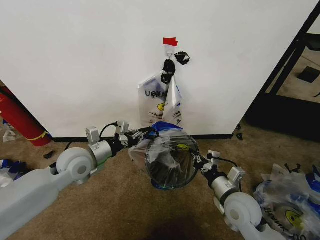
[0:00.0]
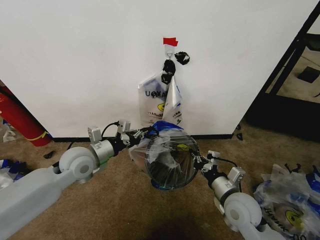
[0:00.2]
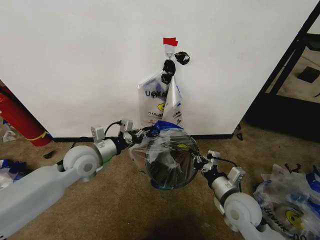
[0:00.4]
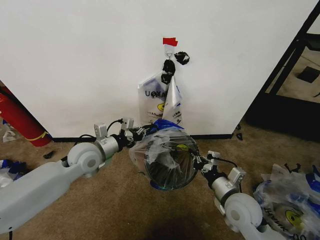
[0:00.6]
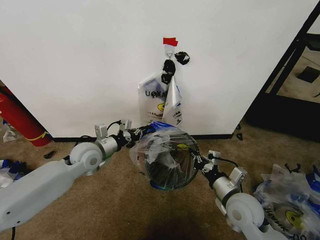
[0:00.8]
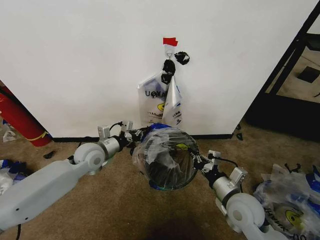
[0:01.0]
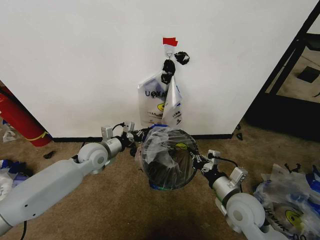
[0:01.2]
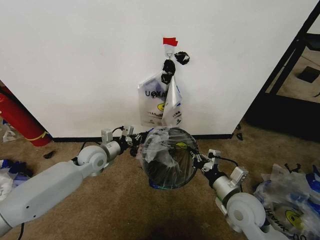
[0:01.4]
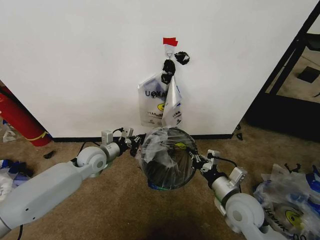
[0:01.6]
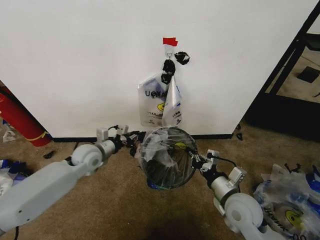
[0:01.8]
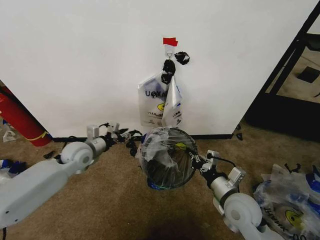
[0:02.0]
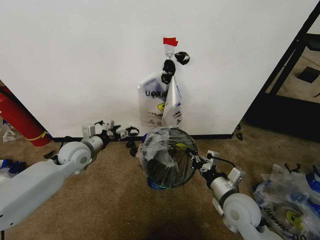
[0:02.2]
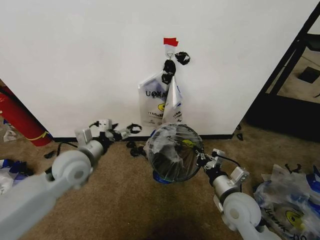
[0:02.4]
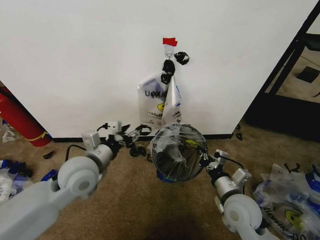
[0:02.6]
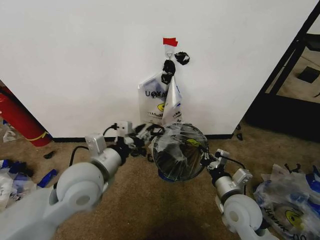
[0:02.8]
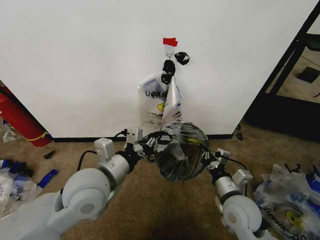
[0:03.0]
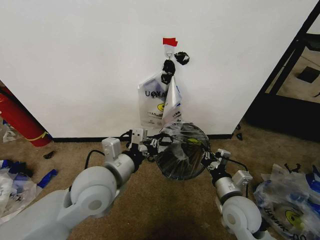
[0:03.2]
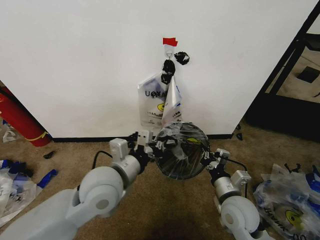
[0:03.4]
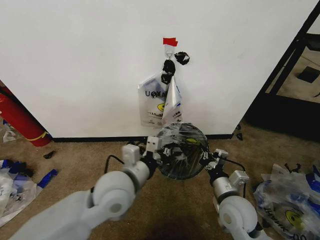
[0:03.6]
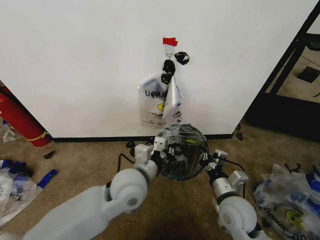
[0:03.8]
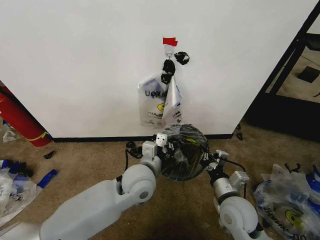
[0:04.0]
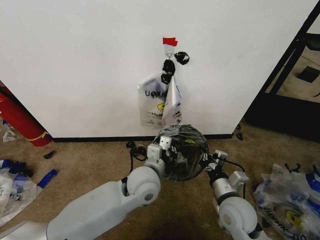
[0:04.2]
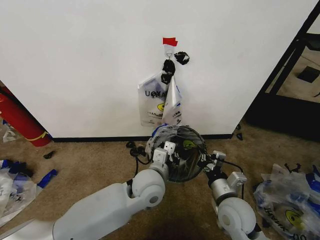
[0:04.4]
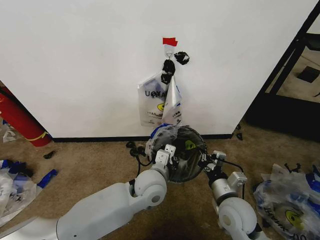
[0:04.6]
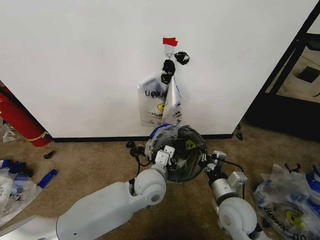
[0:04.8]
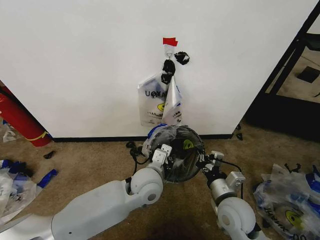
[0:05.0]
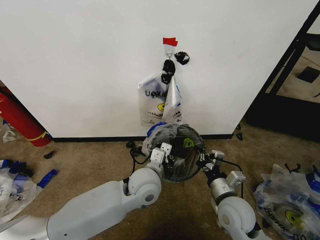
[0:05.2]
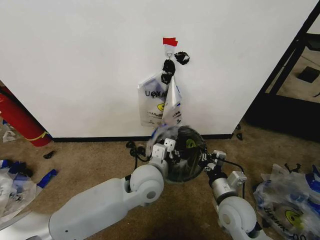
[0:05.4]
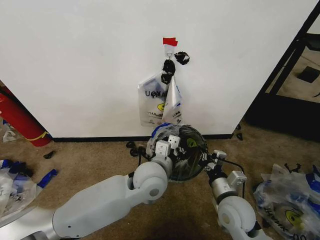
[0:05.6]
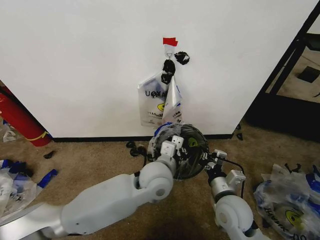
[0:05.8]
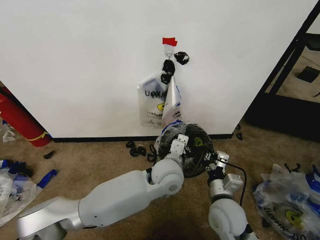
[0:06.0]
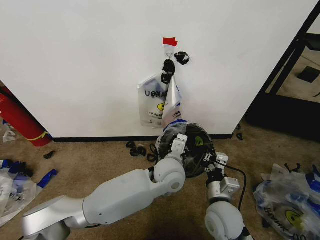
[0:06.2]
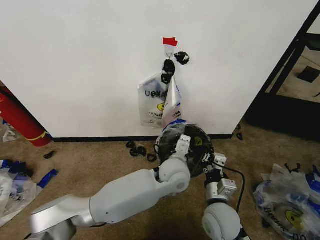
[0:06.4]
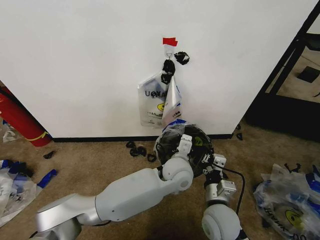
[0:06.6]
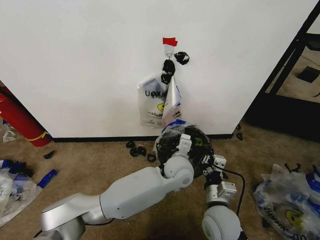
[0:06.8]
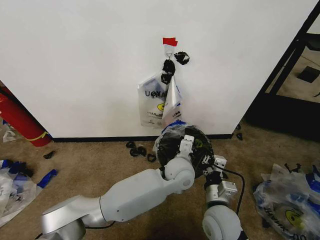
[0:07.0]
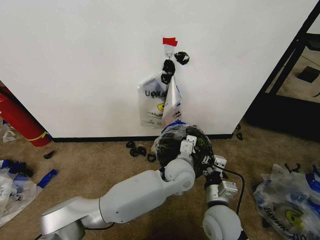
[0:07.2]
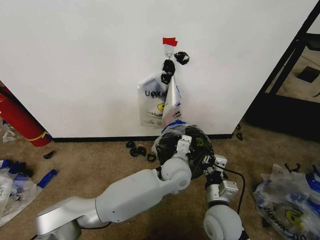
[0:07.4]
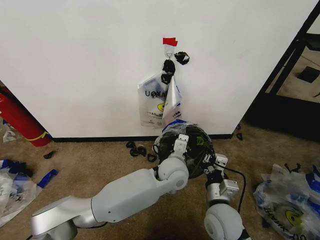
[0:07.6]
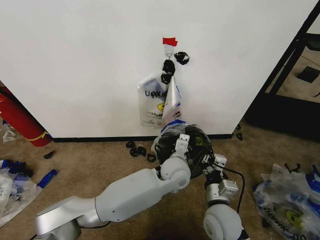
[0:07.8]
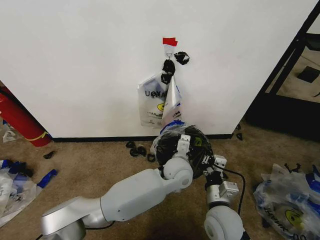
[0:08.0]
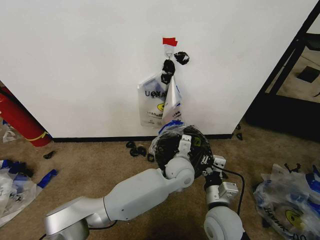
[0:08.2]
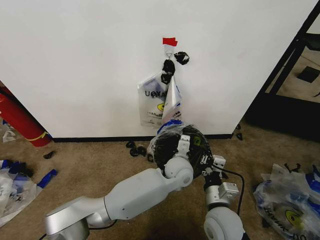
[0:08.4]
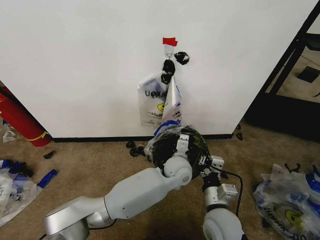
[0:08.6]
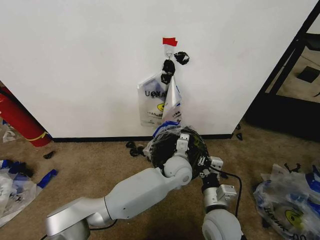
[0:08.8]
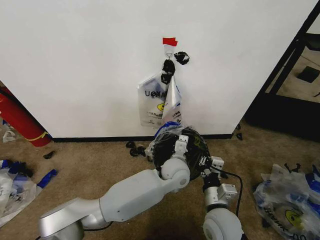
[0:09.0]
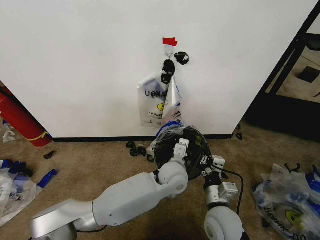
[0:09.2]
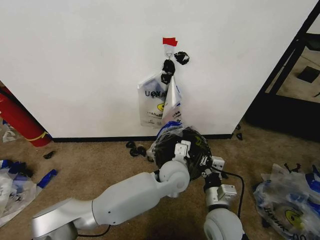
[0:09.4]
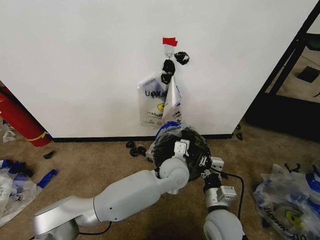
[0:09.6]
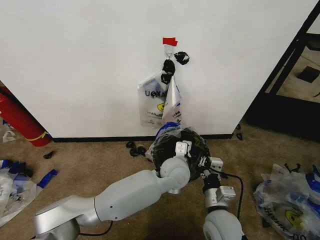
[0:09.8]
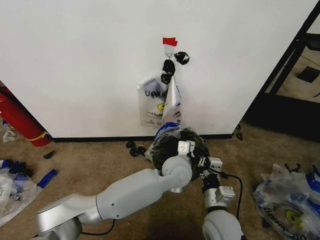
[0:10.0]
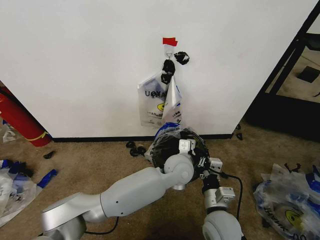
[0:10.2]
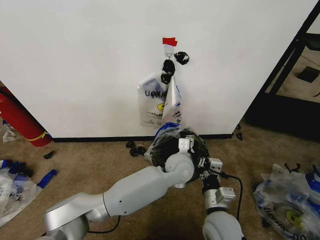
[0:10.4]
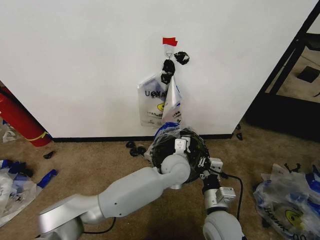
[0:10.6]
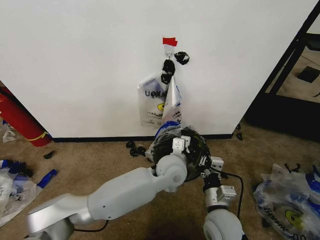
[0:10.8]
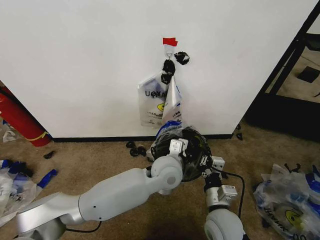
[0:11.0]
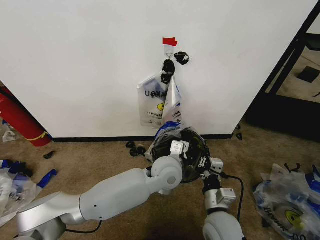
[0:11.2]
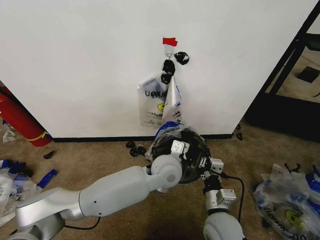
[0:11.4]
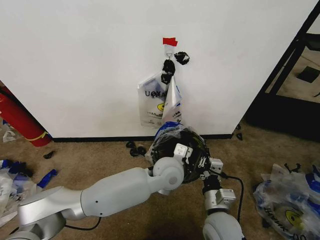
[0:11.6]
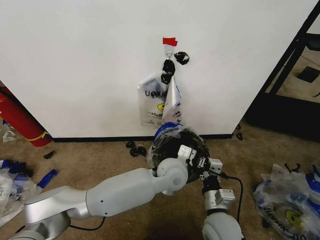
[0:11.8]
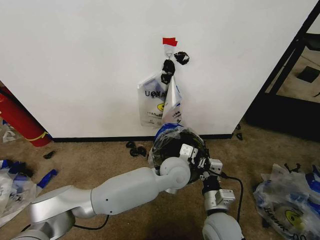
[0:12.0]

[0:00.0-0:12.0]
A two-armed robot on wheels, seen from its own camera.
Task of the whole recording: Pick up the garbage bag from the wall and place it over the trash bin.
0:00.0 to 0:01.6: The left gripper is displaced downward and forward by about 10 cm.
0:01.6 to 0:03.0: The left gripper travels backward, upward and to the right by approximately 25 cm, and opens and closes again.
0:03.0 to 0:04.4: The left gripper travels to the right, downward and forward by approximately 15 cm.
0:04.4 to 0:06.0: The left gripper shifts approximately 5 cm to the right.
0:07.6 to 0:10.4: The grippers make only small movements.

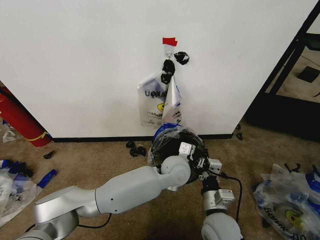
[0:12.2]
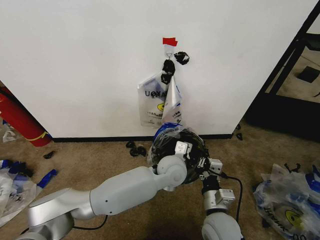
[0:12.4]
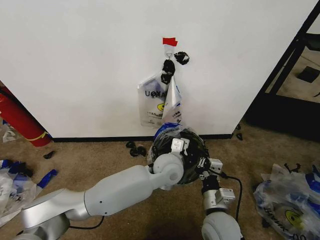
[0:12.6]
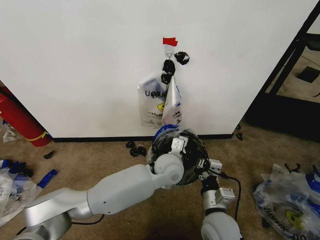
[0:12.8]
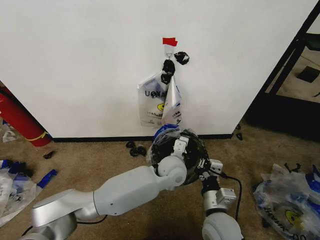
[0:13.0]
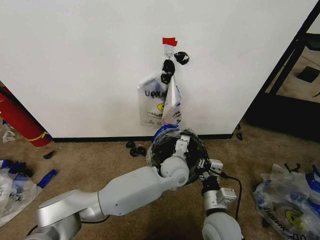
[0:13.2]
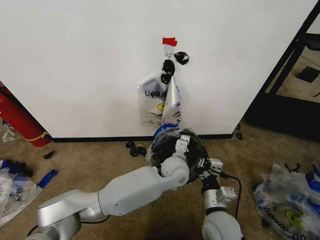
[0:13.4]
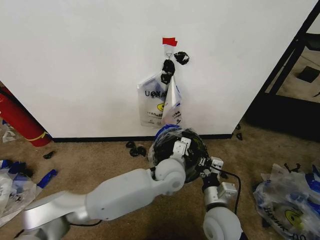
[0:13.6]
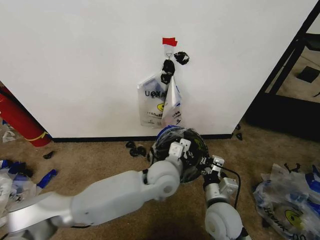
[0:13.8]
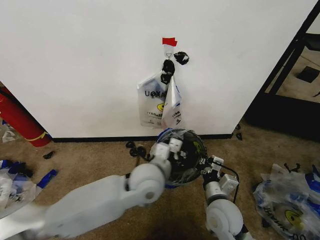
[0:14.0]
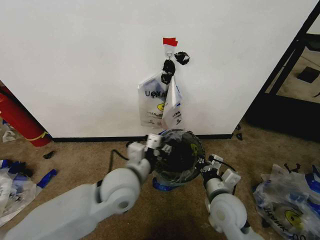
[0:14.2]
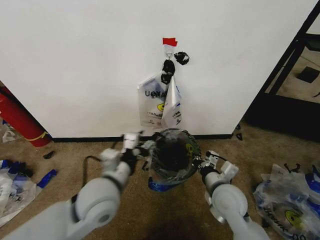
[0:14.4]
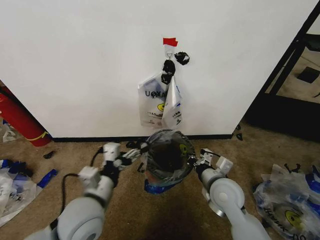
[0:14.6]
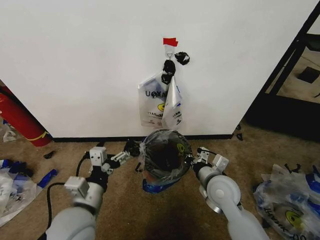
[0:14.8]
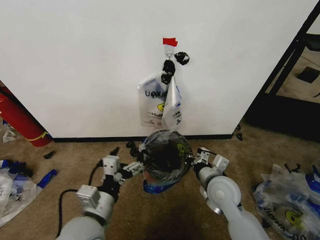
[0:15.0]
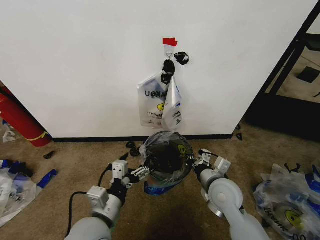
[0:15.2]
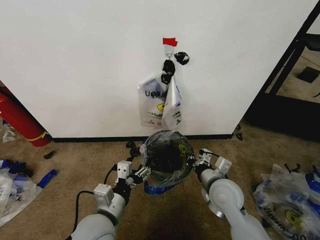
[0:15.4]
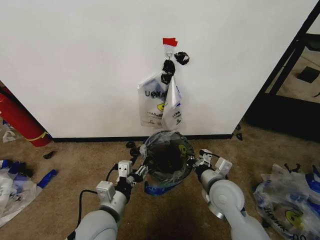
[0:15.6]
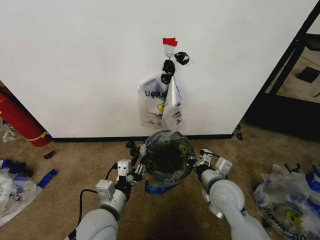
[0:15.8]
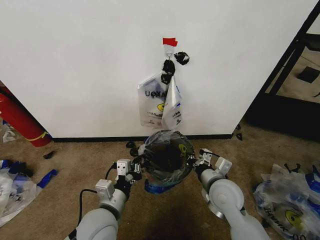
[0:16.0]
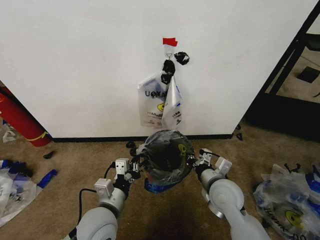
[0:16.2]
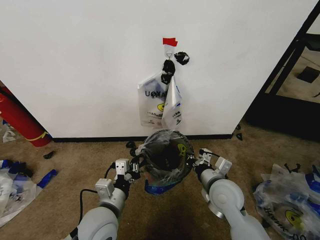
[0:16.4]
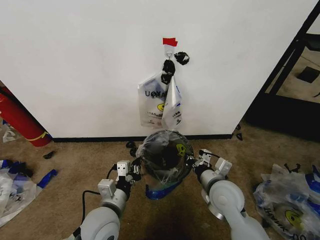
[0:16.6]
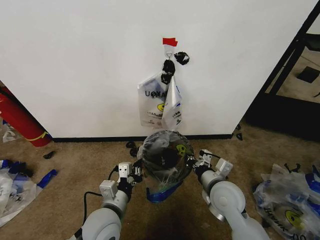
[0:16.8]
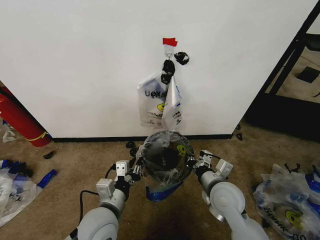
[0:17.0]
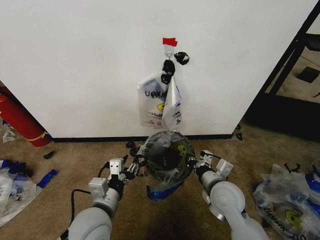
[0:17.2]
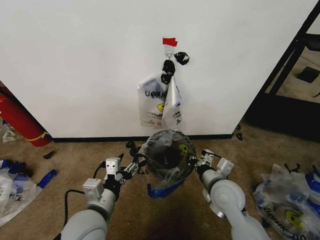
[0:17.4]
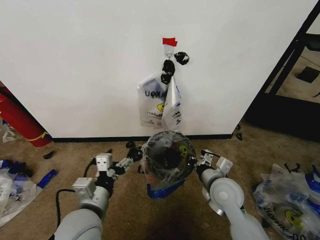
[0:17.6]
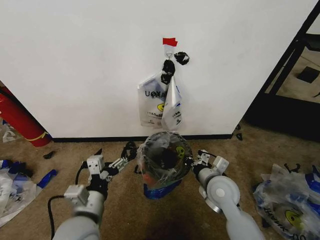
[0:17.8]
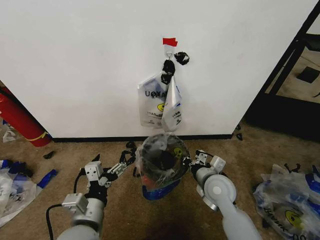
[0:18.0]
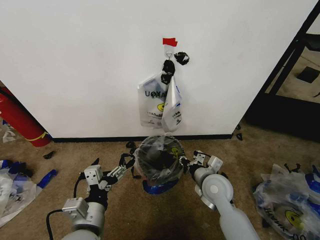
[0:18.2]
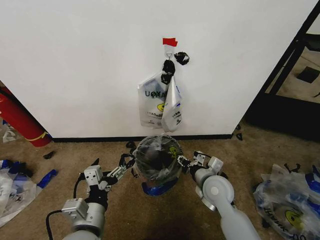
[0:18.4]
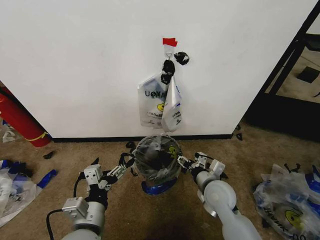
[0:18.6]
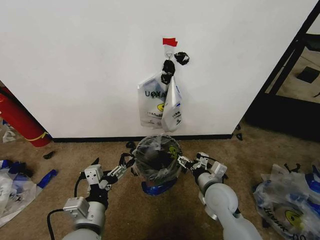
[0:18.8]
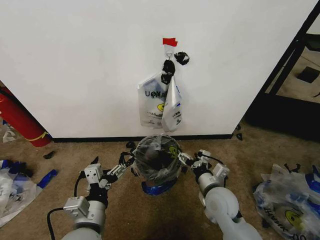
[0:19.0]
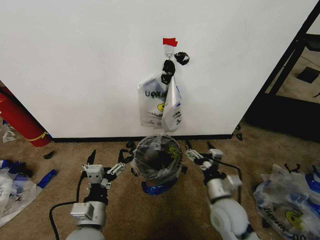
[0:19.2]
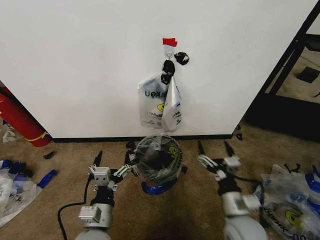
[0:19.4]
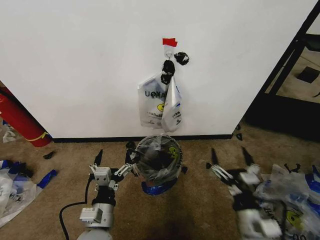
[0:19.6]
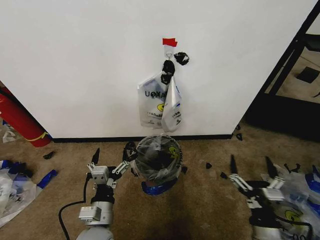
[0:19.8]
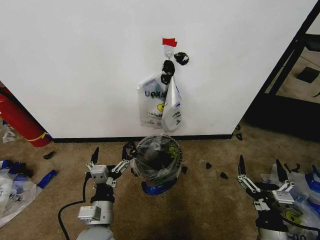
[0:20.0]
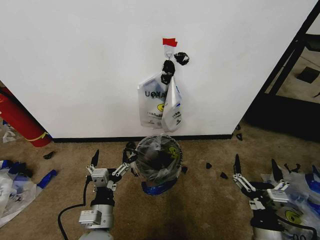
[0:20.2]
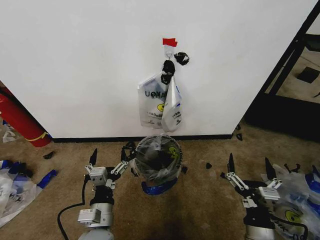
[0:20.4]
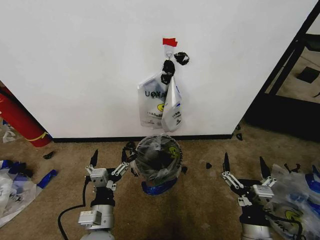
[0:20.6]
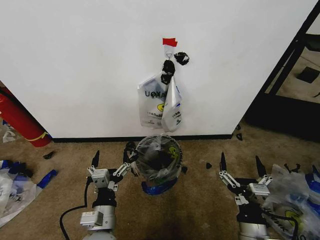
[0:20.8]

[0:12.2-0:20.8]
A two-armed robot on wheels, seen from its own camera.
Task of the whole recording: Pick up the garbage bag from the wall and place it over the trash bin.
0:12.2 to 0:13.6: There are only small adjustments of the grippers.
0:13.6 to 0:15.0: The right gripper travels forward by approximately 10 cm, while the left gripper goes about 30 cm to the left and backward, and opens up.
0:15.0 to 0:16.6: The left gripper moves downward, approximately 5 cm, and closes.
0:16.6 to 0:18.0: The left gripper moves backward, approximately 5 cm, and opens.
0:18.0 to 0:19.4: The right gripper goes about 10 cm backward, and opens up, while the left gripper heads downward, covering some 5 cm.
0:19.4 to 0:20.8: The right gripper shifts approximately 10 cm backward.

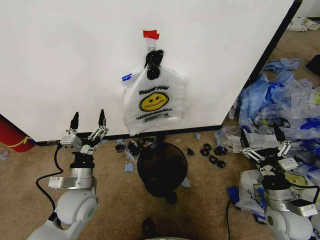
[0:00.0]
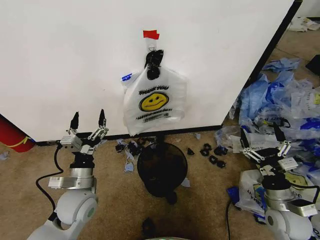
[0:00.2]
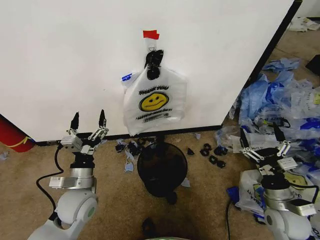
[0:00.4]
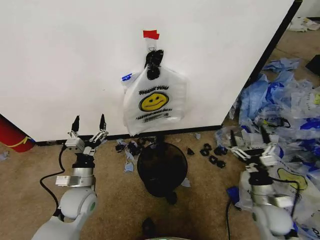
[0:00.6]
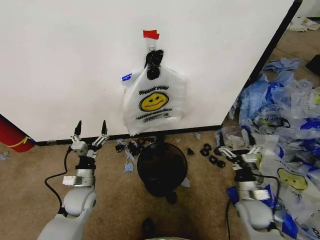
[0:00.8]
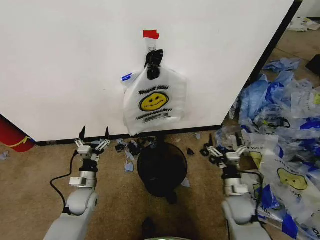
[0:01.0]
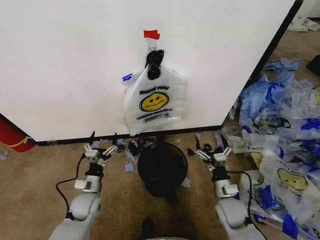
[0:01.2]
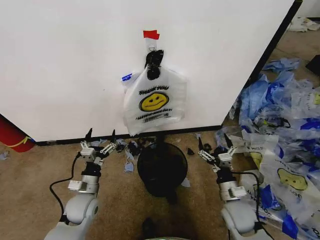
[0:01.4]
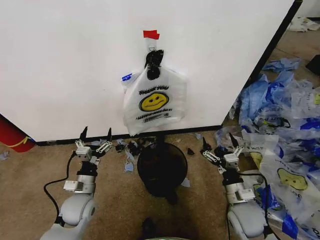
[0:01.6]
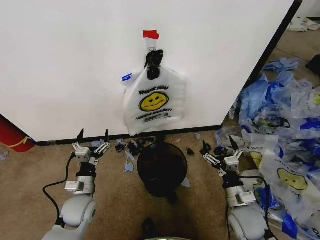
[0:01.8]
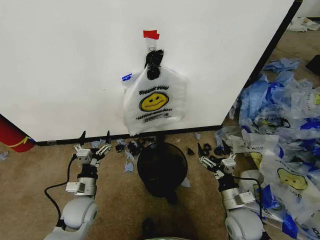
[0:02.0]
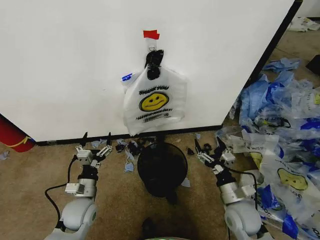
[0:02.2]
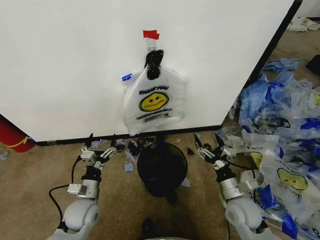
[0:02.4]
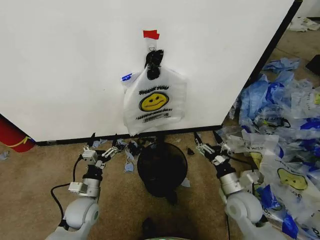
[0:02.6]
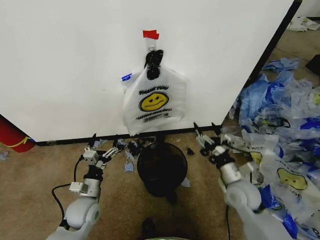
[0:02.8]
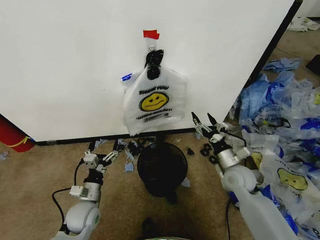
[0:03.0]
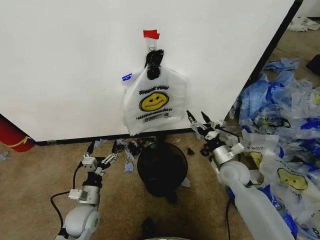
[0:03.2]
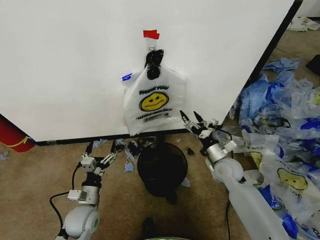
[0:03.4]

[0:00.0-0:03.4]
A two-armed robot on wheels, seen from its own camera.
Task of the whole recording: Pick up the garbage bag from the wall and place it over the trash bin.
0:01.6 to 0:03.4: The right gripper moves forward, approximately 15 cm.
